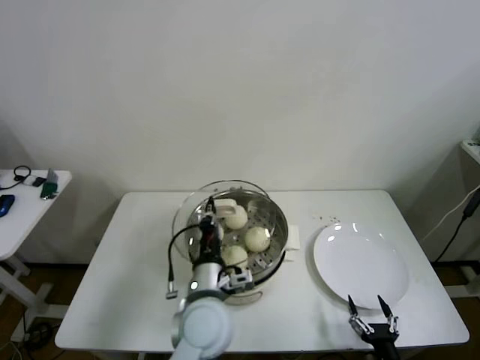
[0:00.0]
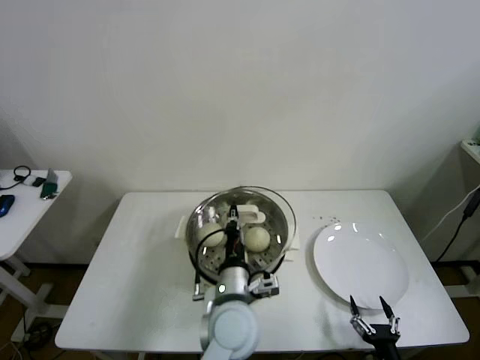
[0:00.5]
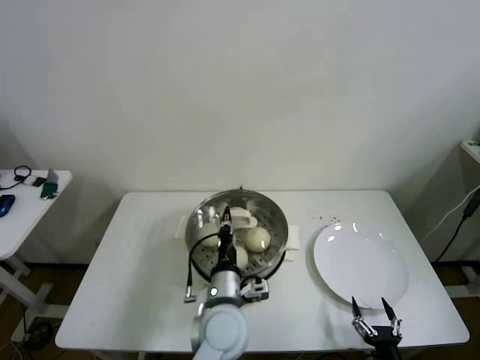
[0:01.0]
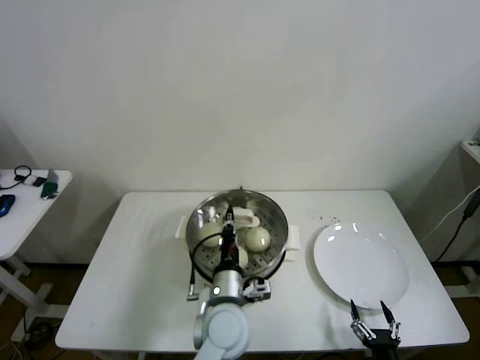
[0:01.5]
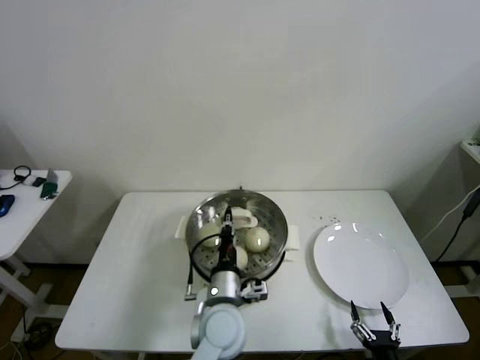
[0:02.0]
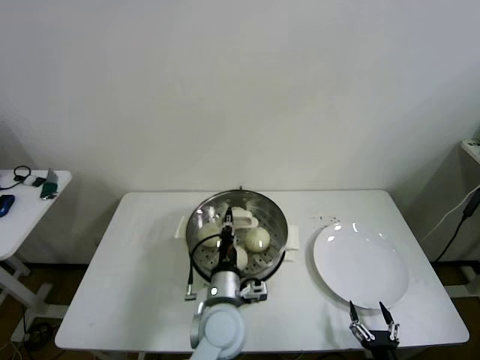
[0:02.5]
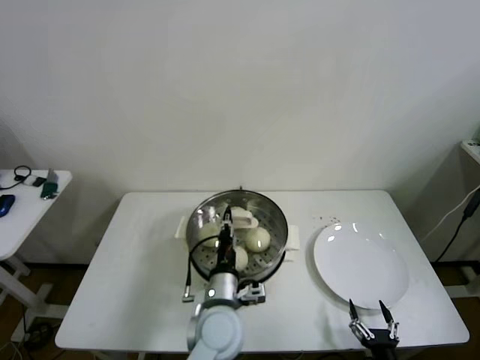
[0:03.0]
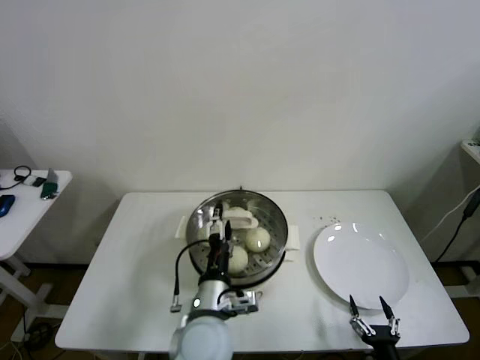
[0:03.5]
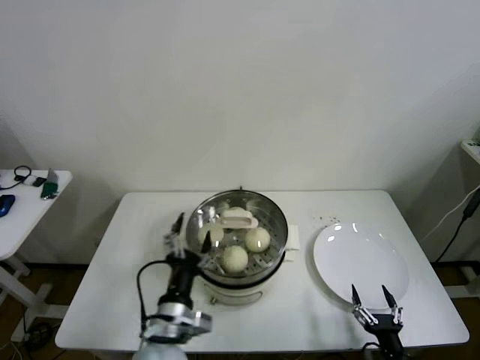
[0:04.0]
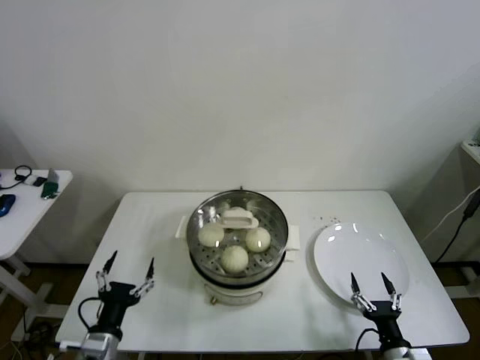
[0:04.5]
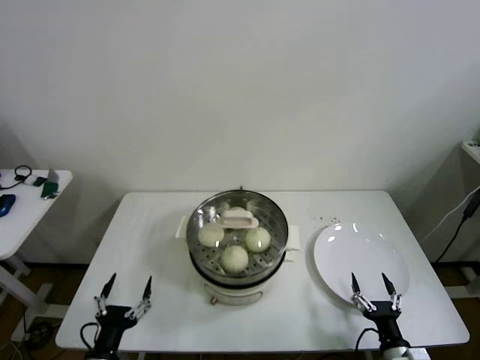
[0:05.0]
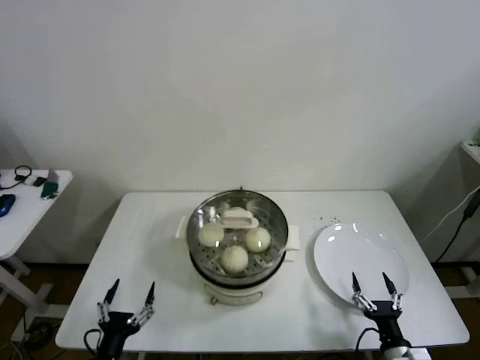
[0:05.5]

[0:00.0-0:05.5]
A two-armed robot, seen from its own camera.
Step, 0:00.0 to 0:03.0: Place the pot lid on the steamer with left gripper.
0:00.0 to 0:02.0: The left gripper ends up about 5 cm from where it was.
0:02.0 to 0:03.5: The left gripper opens up.
0:03.5 to 0:05.5: The left gripper moves to the left, backward and downward, about 30 cm, while the right gripper moves roughly 5 cm.
